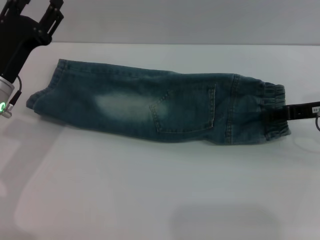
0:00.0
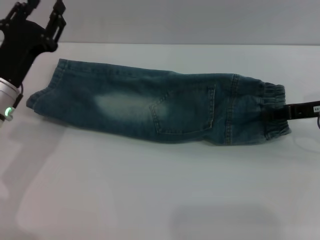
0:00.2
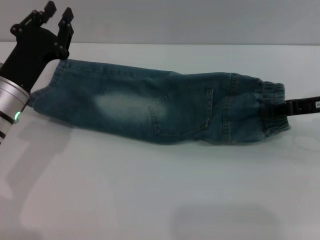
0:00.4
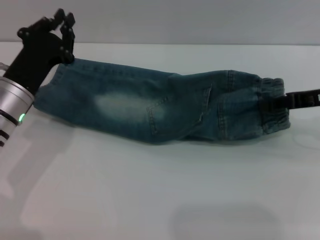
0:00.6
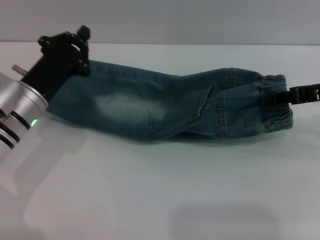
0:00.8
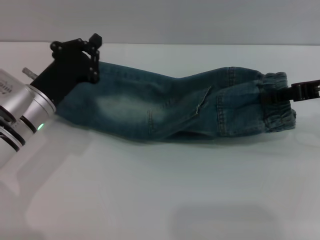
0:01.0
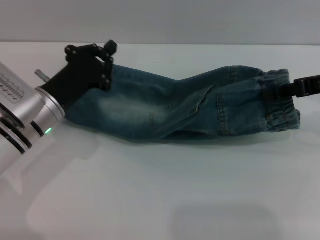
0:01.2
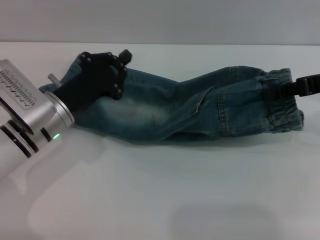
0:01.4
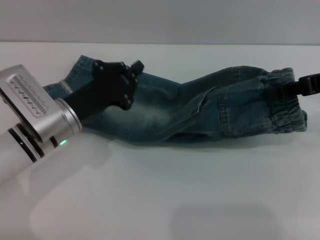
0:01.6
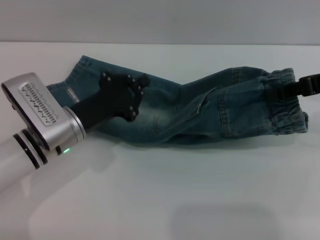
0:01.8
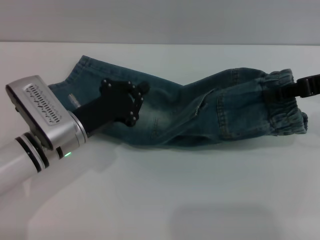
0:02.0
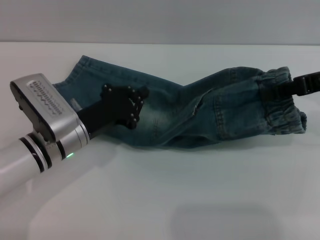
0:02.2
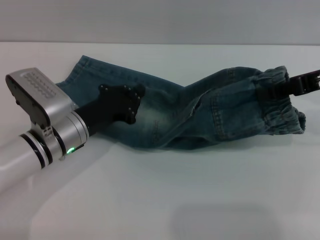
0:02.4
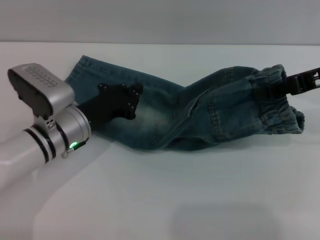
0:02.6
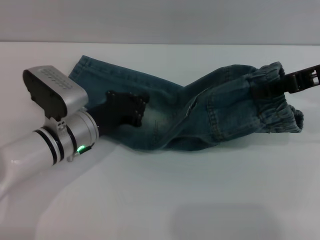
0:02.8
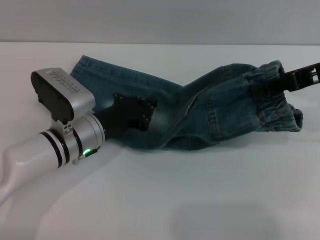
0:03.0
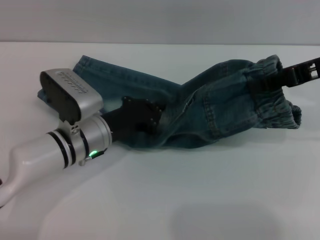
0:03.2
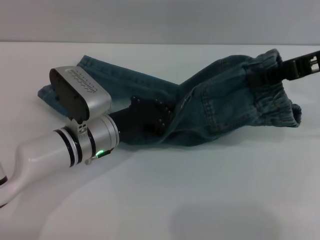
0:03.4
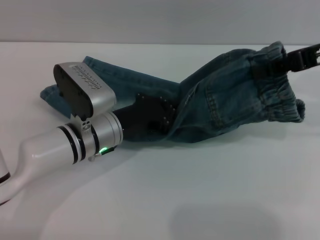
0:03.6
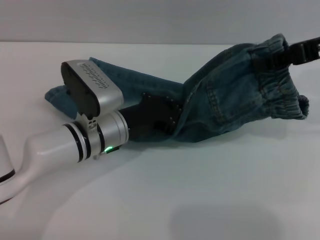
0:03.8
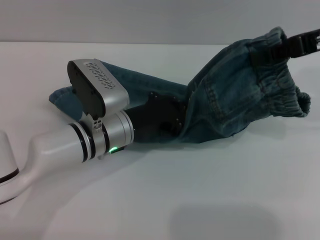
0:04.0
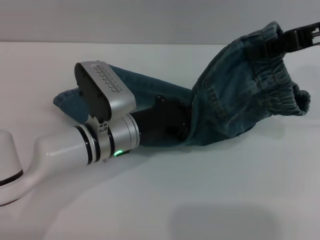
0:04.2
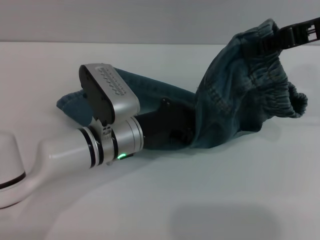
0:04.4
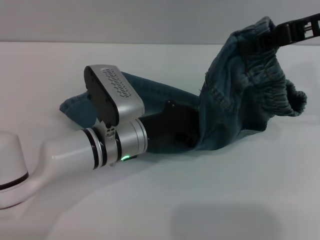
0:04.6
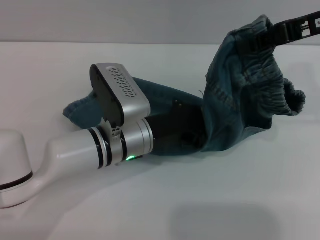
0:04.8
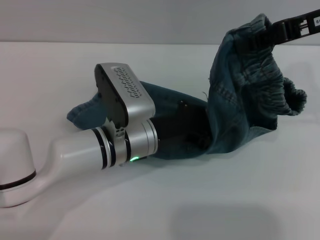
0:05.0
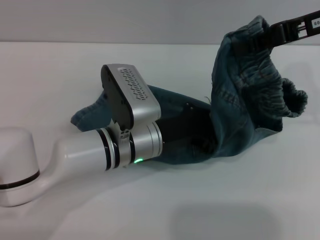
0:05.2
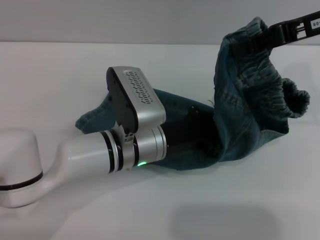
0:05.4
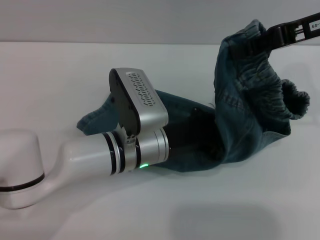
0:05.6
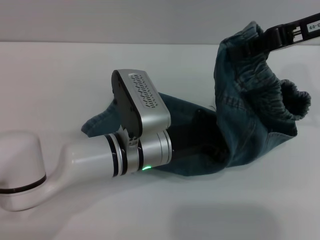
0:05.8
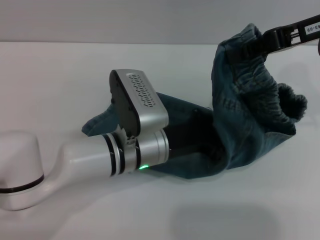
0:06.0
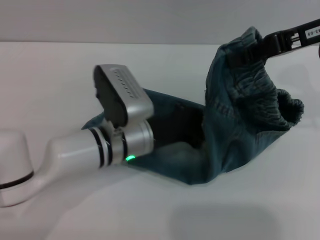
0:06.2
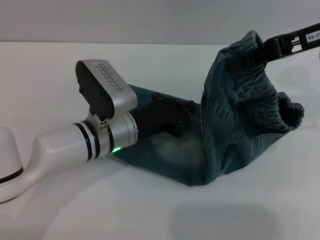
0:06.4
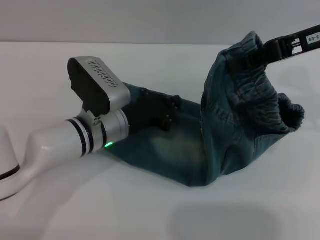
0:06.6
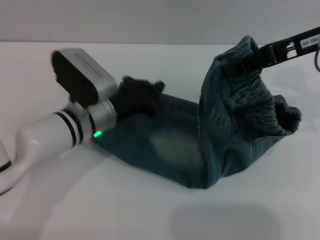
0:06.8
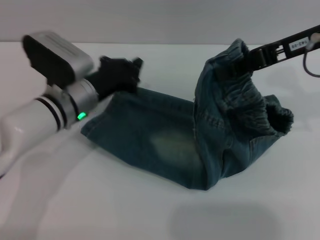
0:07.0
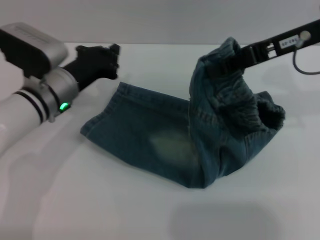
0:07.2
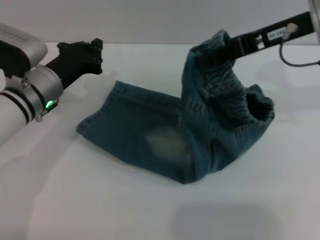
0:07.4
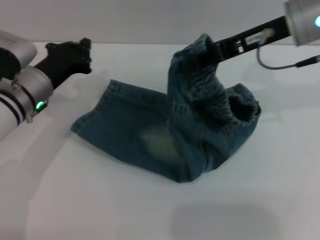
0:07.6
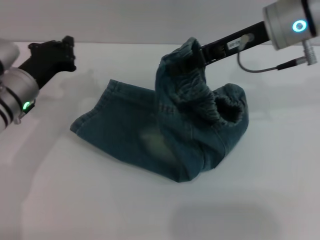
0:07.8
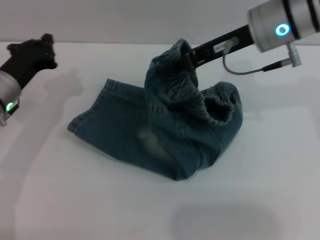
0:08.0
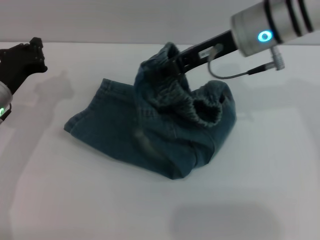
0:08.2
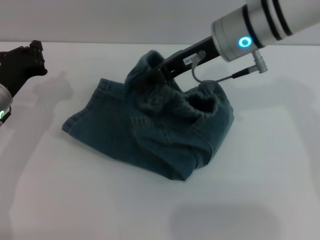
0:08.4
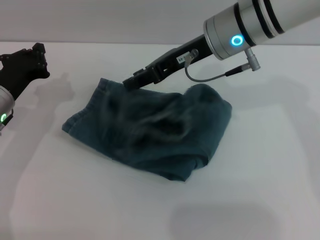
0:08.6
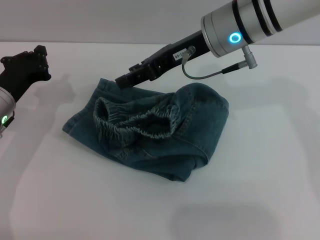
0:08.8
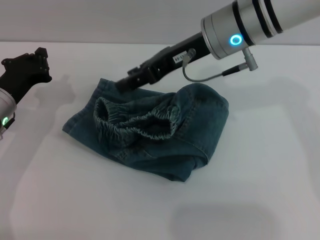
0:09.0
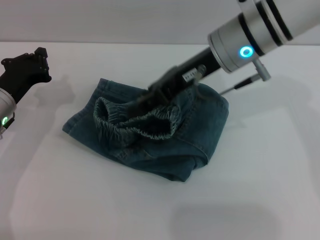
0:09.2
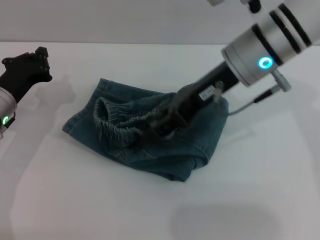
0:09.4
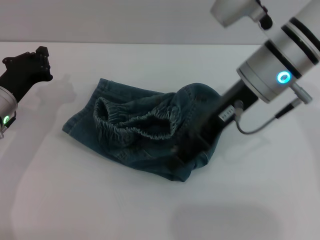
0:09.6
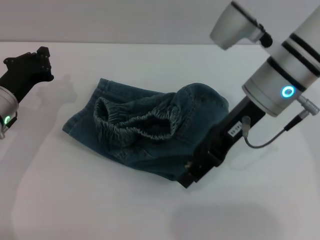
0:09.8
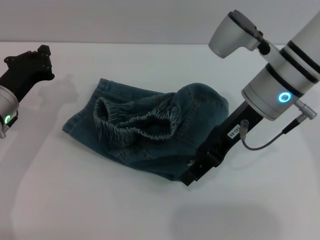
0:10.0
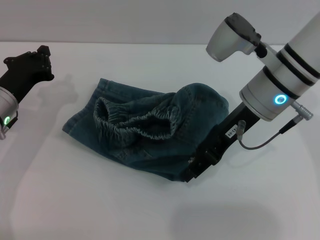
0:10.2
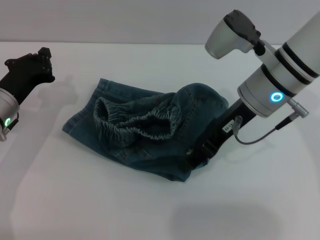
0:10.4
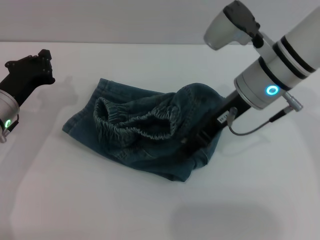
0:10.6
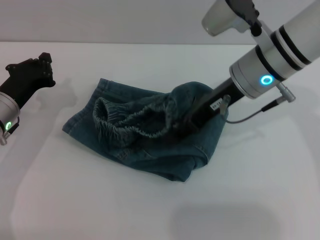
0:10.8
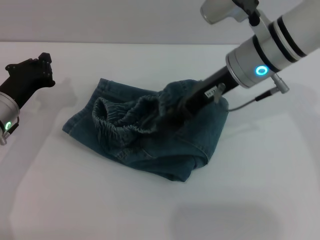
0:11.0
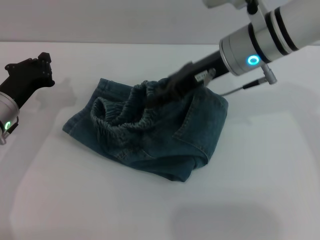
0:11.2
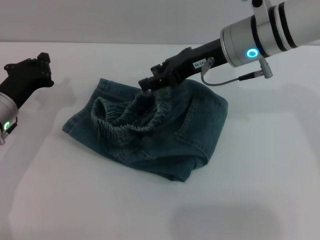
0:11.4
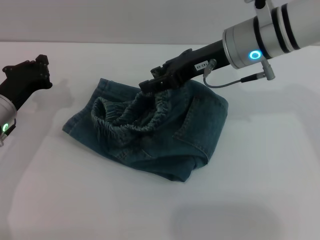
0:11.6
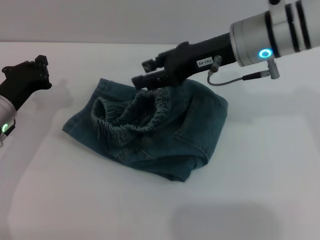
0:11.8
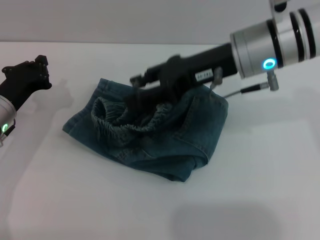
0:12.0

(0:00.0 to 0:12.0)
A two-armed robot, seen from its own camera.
0:00.0 - 0:01.6: The left gripper travels to the right by some 5 cm, and closes. Meanwhile the right gripper shifts about 10 cm upward.
0:03.0 - 0:04.4: The left gripper moves to the right, approximately 5 cm, while the right gripper shifts by about 5 cm.
0:06.0 - 0:07.6: The right gripper is displaced to the left by some 5 cm, while the left gripper is displaced to the left and forward by approximately 15 cm.
0:07.6 - 0:09.0: The left gripper is displaced to the left by some 5 cm, while the right gripper moves to the left, approximately 10 cm, and opens its fingers.
0:09.0 - 0:10.4: The right gripper changes place by roughly 5 cm.

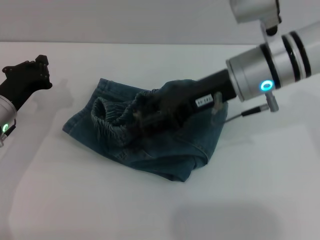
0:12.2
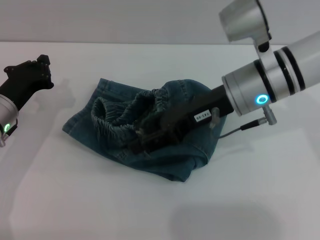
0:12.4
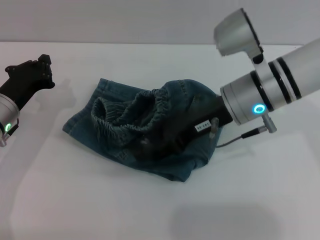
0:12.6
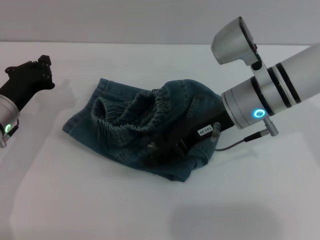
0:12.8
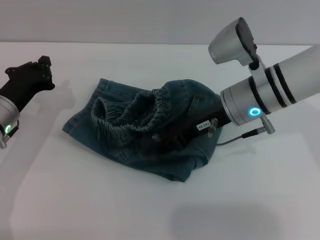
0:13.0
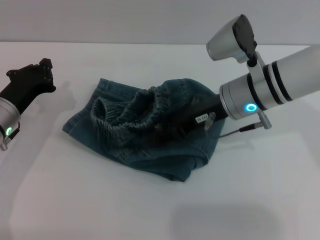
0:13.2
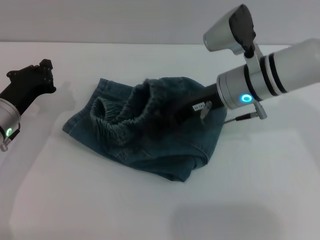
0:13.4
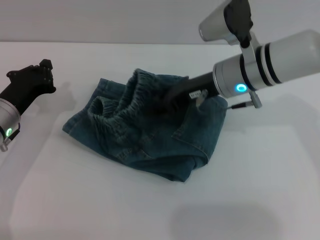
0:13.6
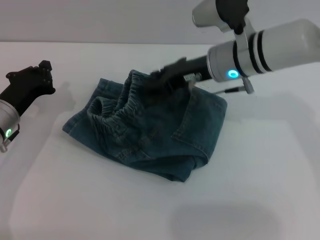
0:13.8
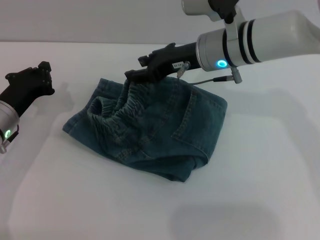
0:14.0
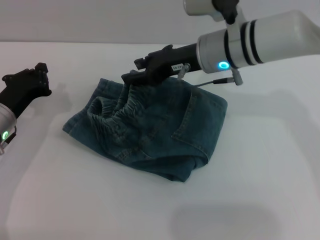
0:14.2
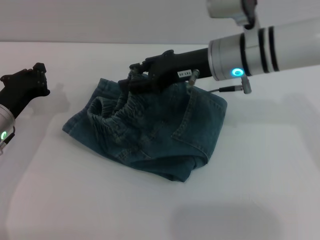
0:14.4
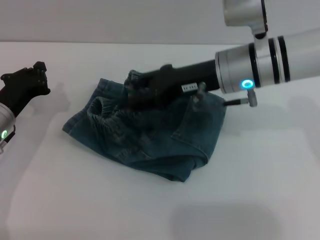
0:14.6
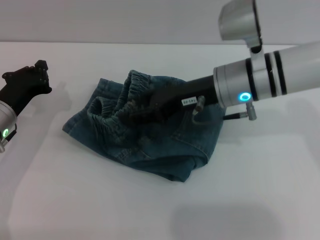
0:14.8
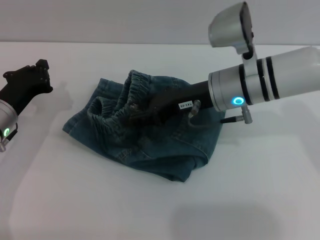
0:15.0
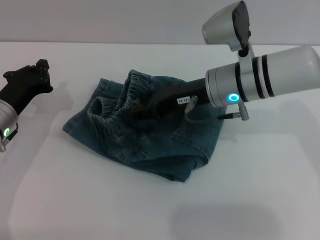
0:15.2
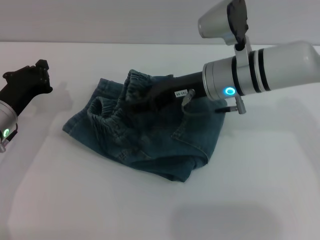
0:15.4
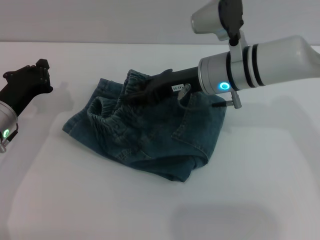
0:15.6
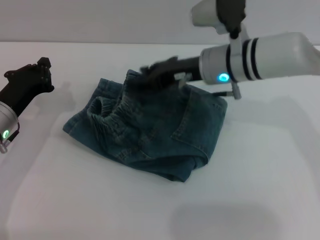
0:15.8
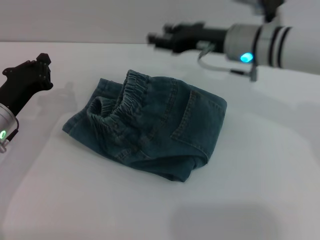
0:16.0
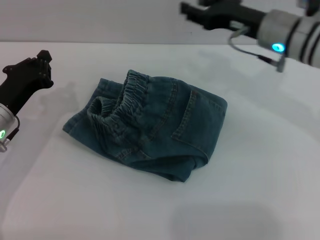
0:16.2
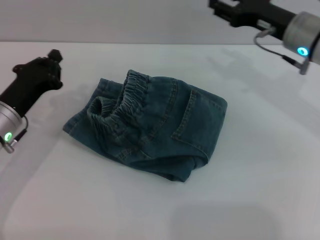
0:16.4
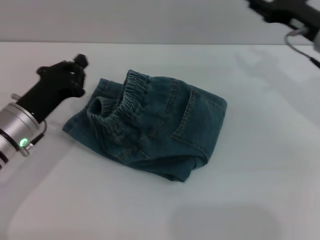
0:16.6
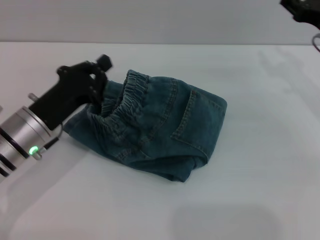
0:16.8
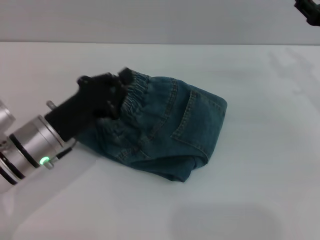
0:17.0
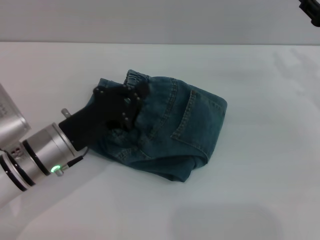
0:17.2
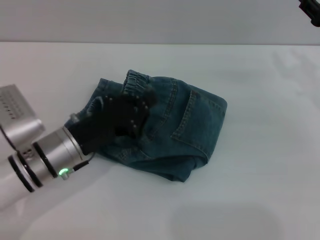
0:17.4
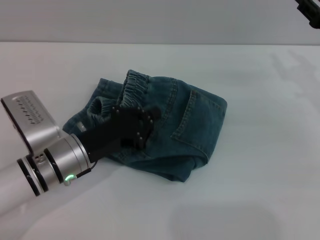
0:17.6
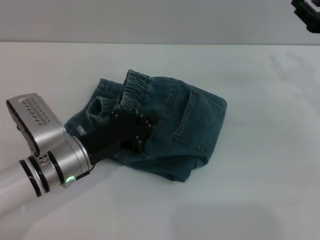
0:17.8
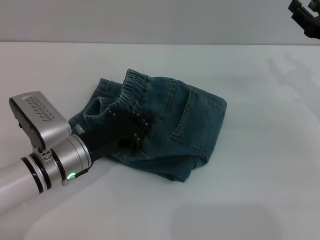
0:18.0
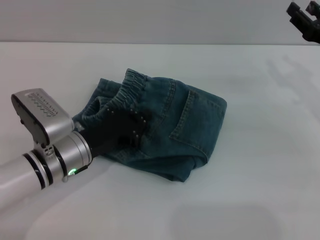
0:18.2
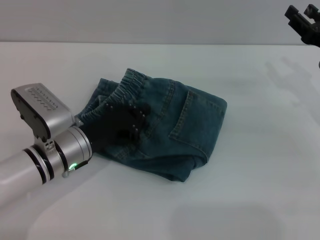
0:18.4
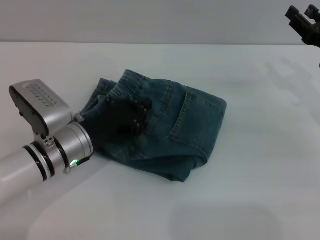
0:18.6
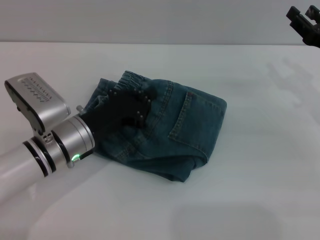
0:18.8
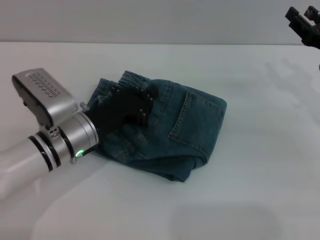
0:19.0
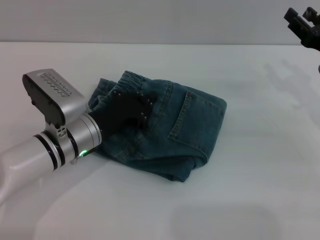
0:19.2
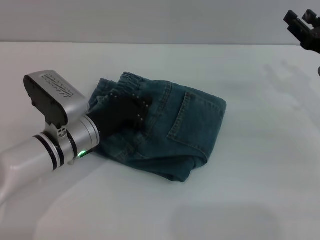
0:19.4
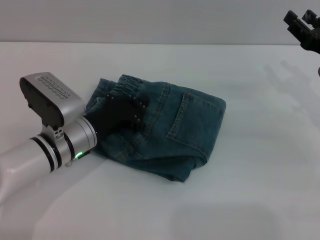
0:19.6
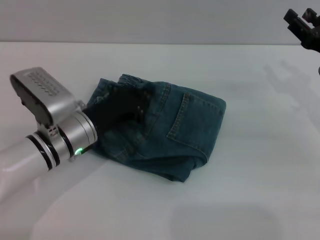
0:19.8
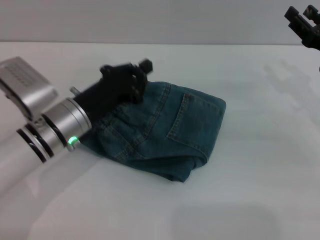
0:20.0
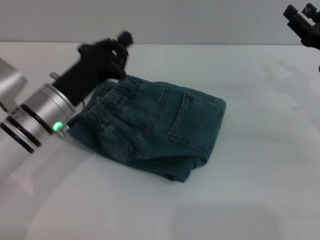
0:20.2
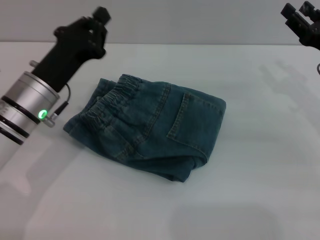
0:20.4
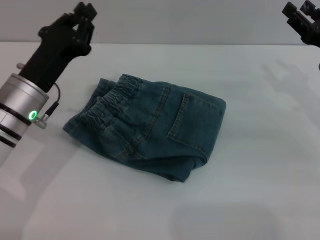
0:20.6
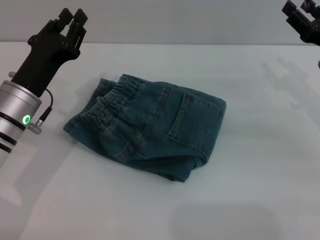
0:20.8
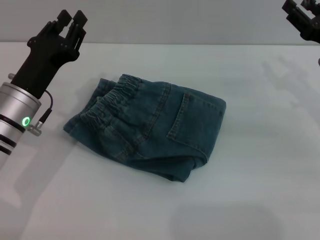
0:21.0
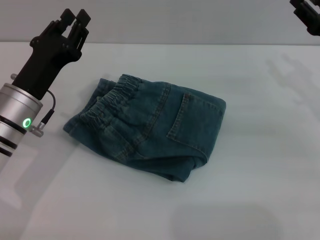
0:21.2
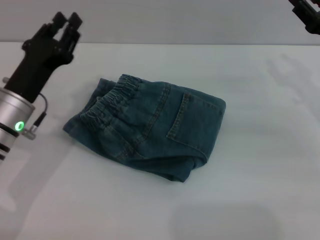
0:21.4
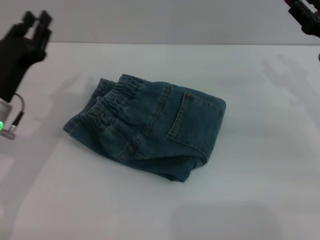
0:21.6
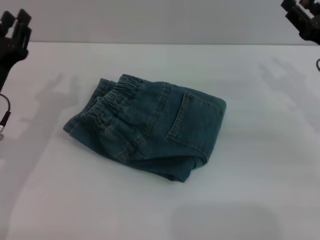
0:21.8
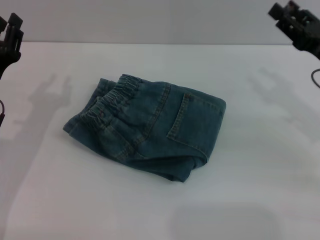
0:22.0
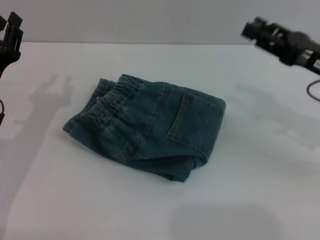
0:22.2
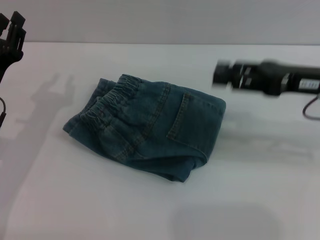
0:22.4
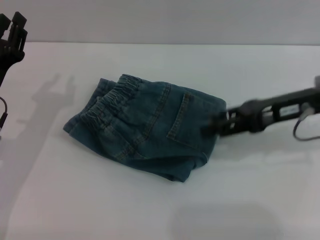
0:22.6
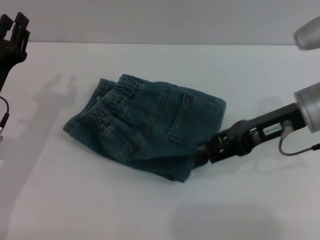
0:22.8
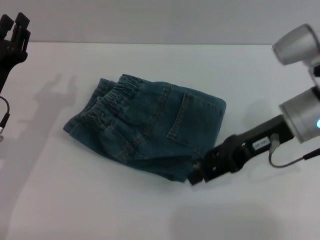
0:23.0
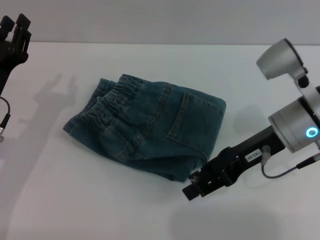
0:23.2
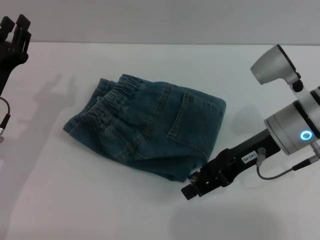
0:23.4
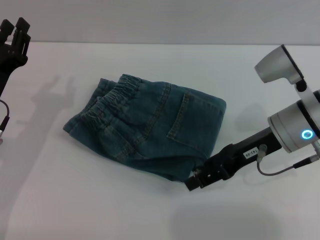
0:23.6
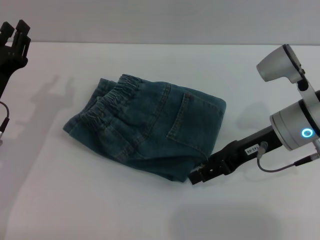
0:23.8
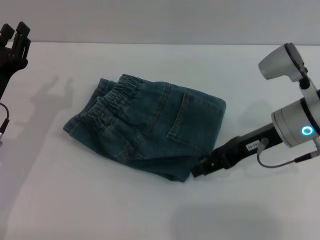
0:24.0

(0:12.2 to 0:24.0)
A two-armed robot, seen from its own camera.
Step, 0:12.2 - 0:15.8: Fold the pants from right to left with the right gripper.
0:12.2 - 0:13.6: The right gripper shifts by approximately 5 cm.
0:13.6 - 0:15.2: There are only small adjustments of the grippers.
0:15.2 - 0:16.6: The right gripper shifts approximately 15 cm to the right.
0:16.6 - 0:18.2: The right gripper changes place by approximately 5 cm. The left gripper moves to the right, about 5 cm.
0:18.2 - 0:19.6: The grippers move only a little.
0:19.6 - 0:21.0: The left gripper is displaced to the left by some 5 cm.
0:21.0 - 0:22.6: The right gripper moves to the left and upward, about 10 cm; the left gripper shifts about 5 cm to the left.
0:22.6 - 0:24.0: The right gripper goes approximately 5 cm downward.
